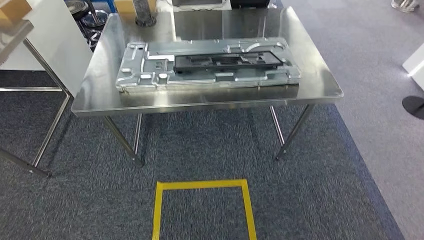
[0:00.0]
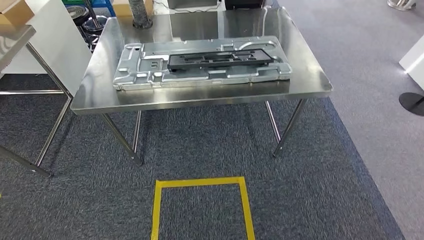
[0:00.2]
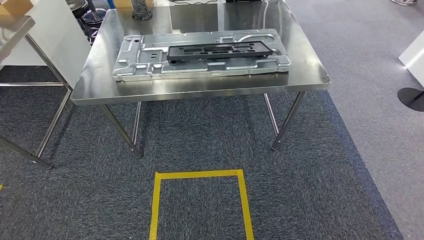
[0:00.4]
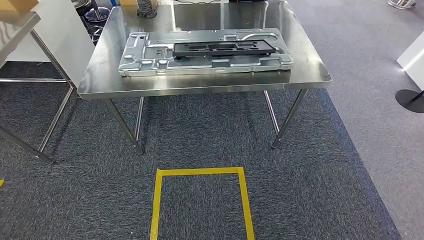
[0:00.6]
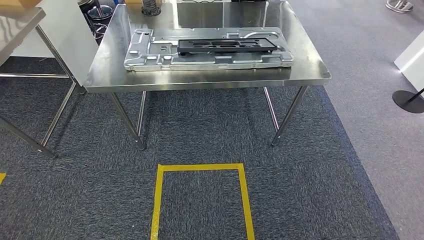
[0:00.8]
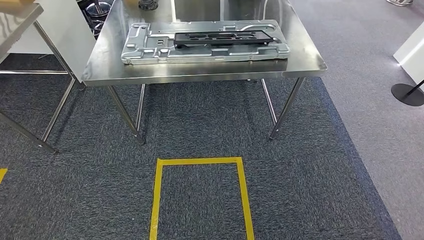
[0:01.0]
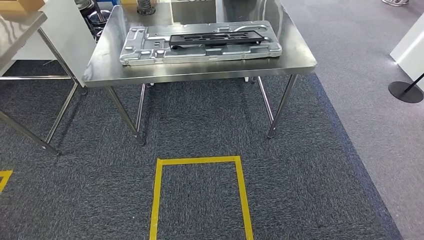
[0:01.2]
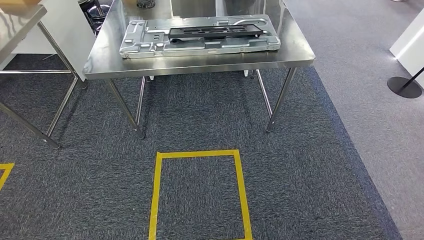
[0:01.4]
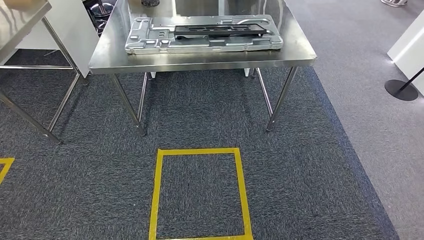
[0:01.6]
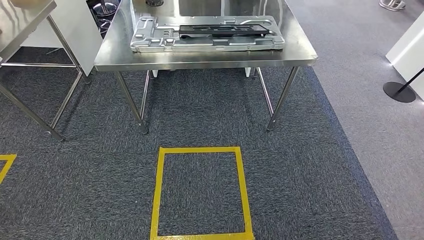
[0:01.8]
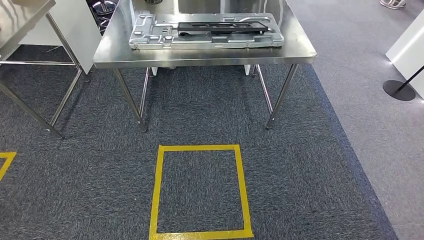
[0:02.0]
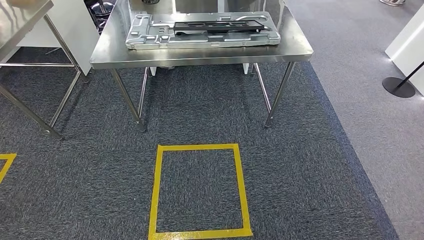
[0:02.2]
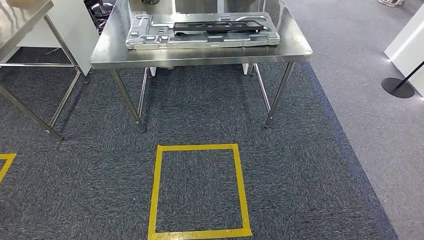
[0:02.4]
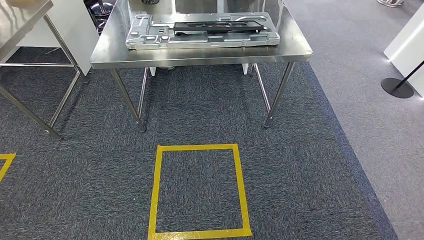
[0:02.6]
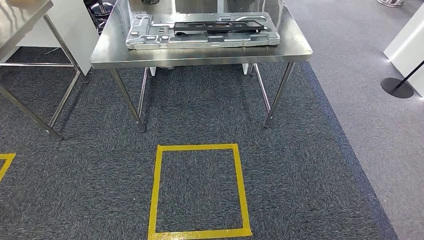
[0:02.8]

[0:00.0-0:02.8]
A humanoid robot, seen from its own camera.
Step, 0:00.0 to 0:02.8: Move to the initial position at the workbench.
0:01.4 to 0:02.8: The hands make only small movements.
